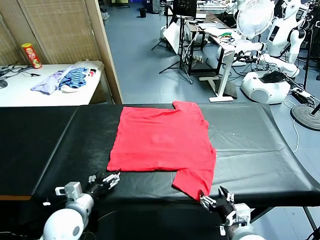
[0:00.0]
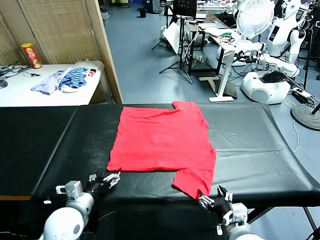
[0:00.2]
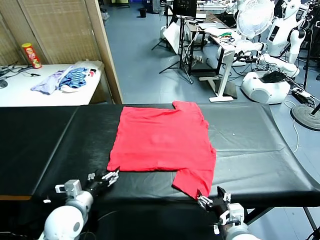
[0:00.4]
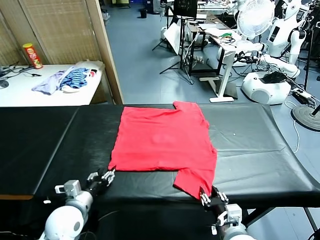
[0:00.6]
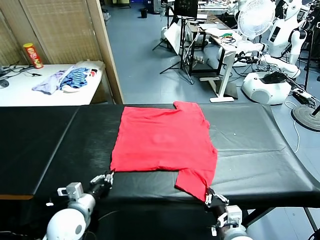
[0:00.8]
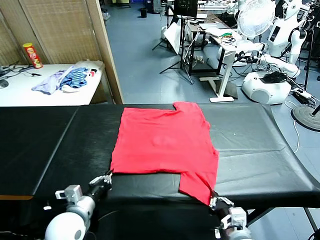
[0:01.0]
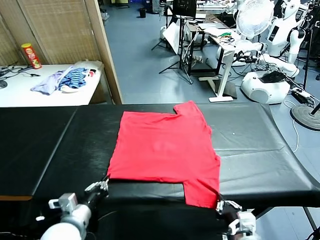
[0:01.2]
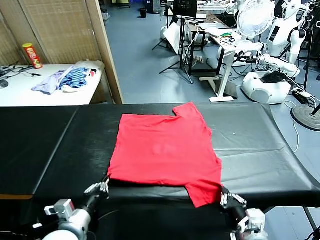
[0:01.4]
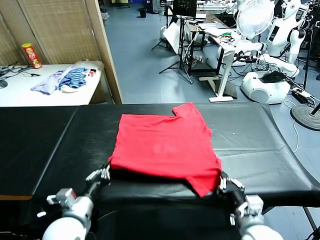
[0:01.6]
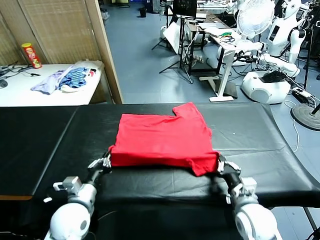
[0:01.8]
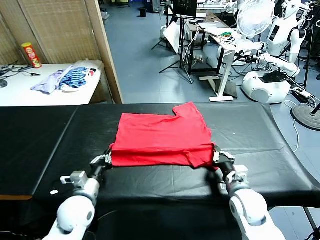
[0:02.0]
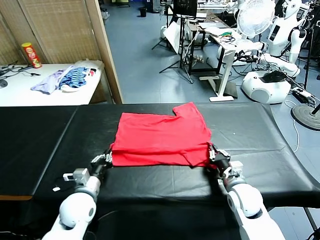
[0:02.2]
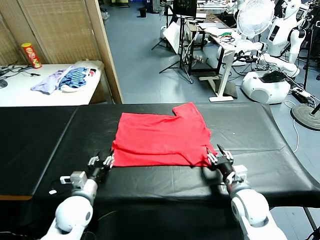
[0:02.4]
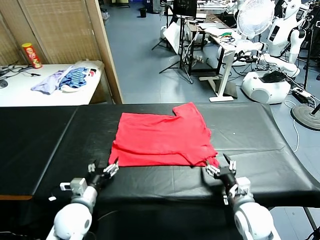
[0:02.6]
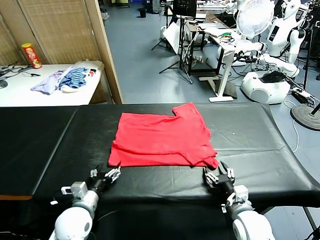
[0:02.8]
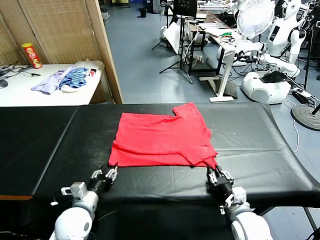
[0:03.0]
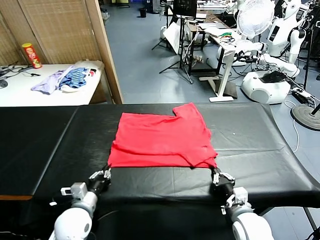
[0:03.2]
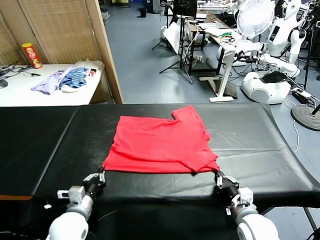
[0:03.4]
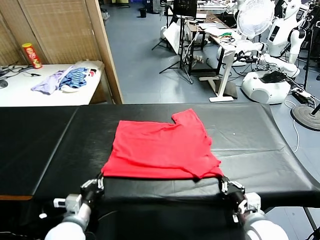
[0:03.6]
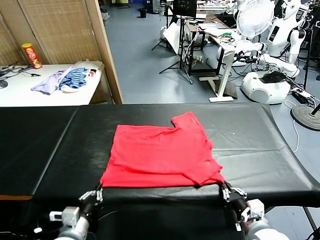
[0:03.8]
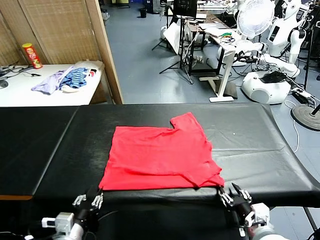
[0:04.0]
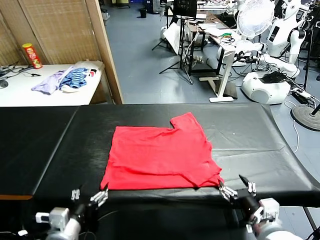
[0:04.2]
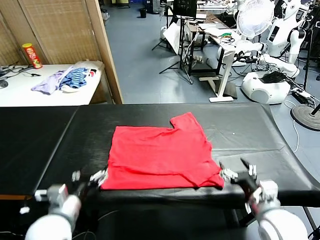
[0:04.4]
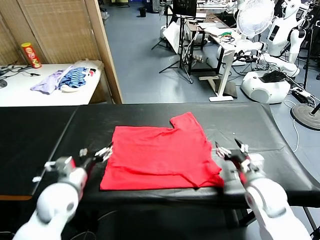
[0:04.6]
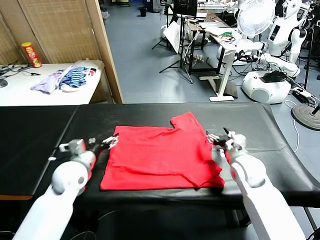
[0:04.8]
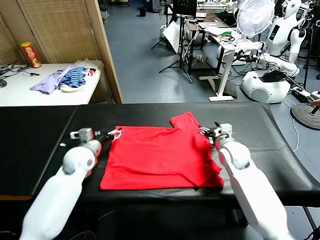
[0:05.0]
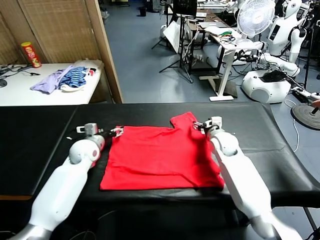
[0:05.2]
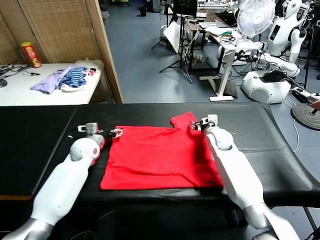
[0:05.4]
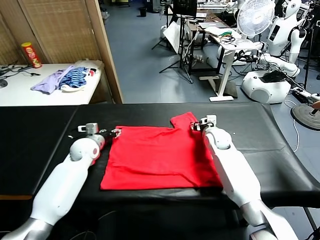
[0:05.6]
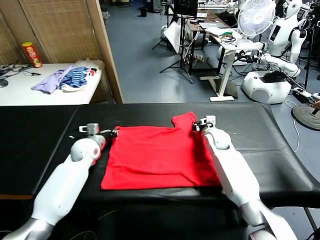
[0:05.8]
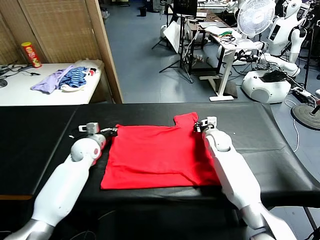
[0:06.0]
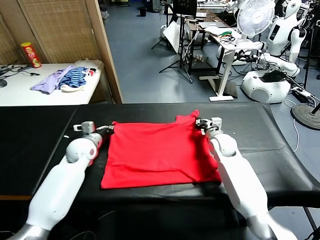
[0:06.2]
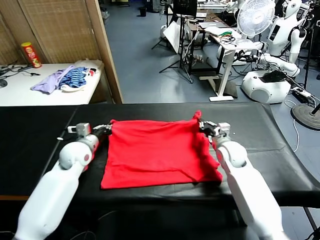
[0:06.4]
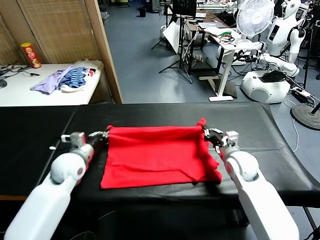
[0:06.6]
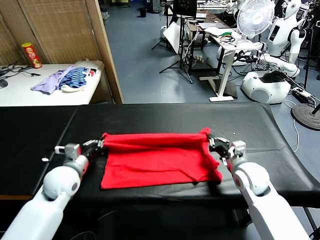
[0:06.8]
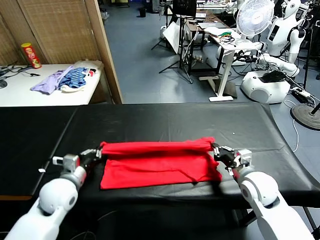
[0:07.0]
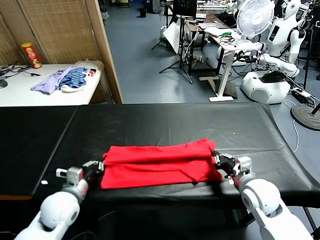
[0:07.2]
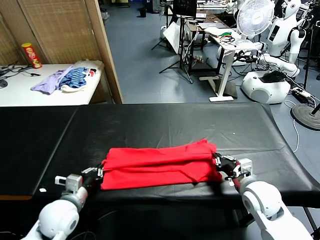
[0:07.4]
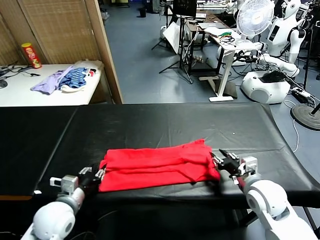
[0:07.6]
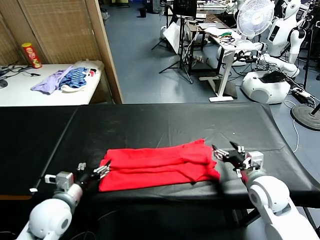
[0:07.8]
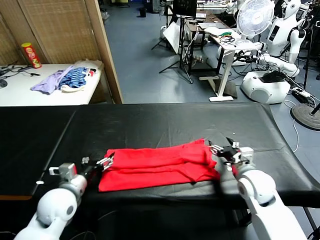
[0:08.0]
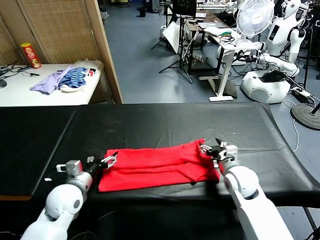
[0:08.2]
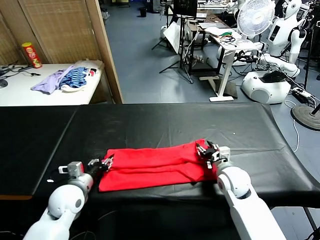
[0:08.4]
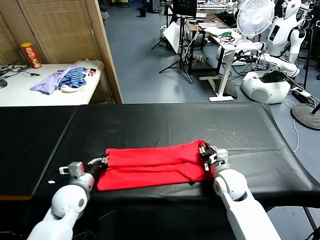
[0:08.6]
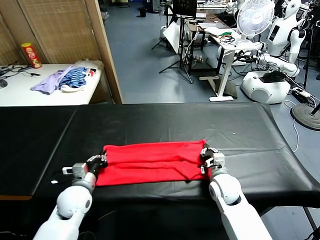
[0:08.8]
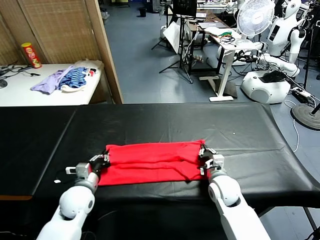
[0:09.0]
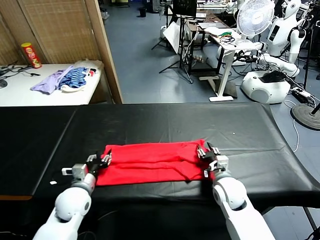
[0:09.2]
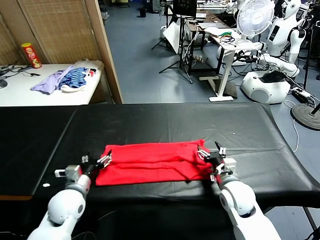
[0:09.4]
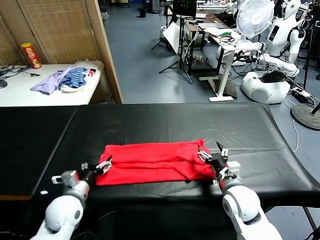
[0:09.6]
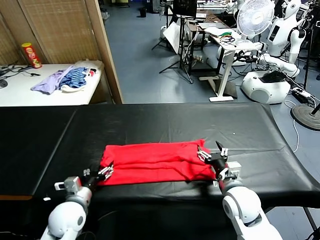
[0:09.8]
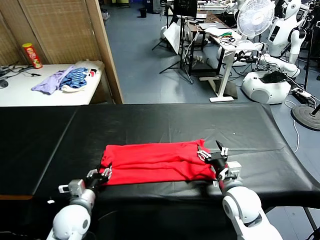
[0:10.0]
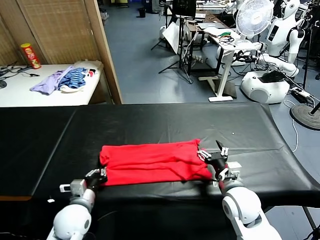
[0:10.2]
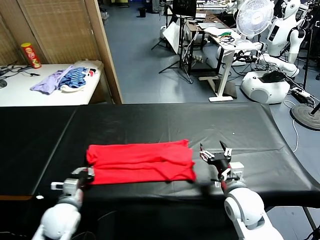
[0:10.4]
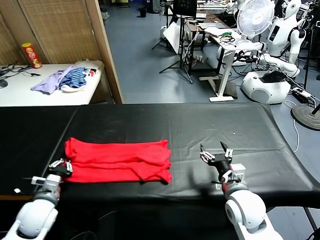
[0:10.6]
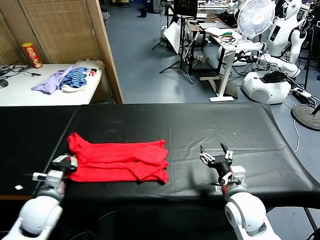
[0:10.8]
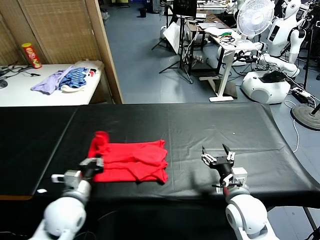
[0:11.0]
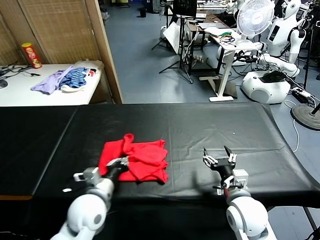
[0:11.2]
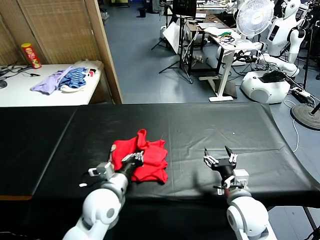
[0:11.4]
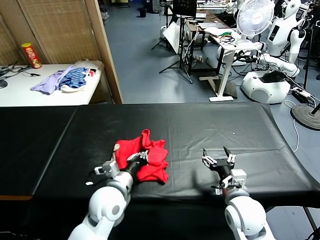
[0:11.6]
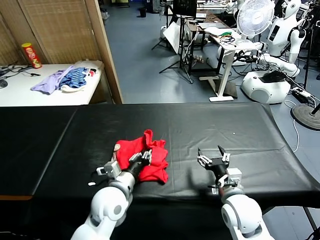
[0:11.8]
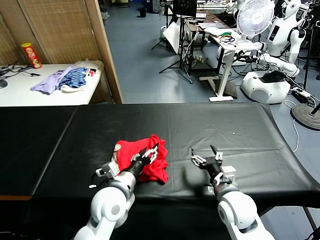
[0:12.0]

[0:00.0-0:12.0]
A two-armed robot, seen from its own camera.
Task of the whole recording: fold and organize the clothes.
Step, 0:00.0 to 0:01.4: use both grippers simultaneously to clamp the lower edge of the clothing fabric.
Step, 0:01.6 to 0:02.4: use both grippers to drag the lower edge of the fabric forward and fold it over the upper edge.
Step, 0:02.6 to 0:04.2: Drag the clothes downward with both gripper.
Step, 0:04.4 to 0:06.2: use both grippers simultaneously to clamp the upper edge of the clothing fabric.
Step, 0:06.4 to 0:07.8: use both grippers to drag the upper edge of the fabric backward and fold it over the lower edge.
Step, 0:08.0 to 0:10.4: use the left gripper to clamp the left edge of the fabric.
0:01.6 to 0:03.0: The left gripper travels downward by roughly 5 cm, and opens; the right gripper moves roughly 5 cm, and opens, then closes once more.
0:03.0 to 0:04.4: The left gripper moves upward, some 10 cm, reaches roughly 10 cm backward, then returns, and opens its fingers; the right gripper travels upward and forward by approximately 10 cm, and opens.
0:04.4 to 0:06.0: The grippers both shift forward by roughly 25 cm. The right gripper closes. The left gripper closes up.
0:06.0 to 0:07.6: Both grippers move backward, roughly 20 cm. The left gripper opens its fingers, while the right gripper opens up.
0:07.6 to 0:09.0: The left gripper shifts approximately 10 cm forward and downward, and closes its fingers, while the right gripper shifts about 10 cm downward and to the left, and closes up.
0:09.0 to 0:10.4: The right gripper heads backward and upward, covering some 10 cm, and opens up. Meanwhile the left gripper goes some 5 cm backward, and opens, then closes once more.
0:10.4 to 0:12.0: The left gripper is displaced to the right and upward by approximately 15 cm, and opens its fingers.

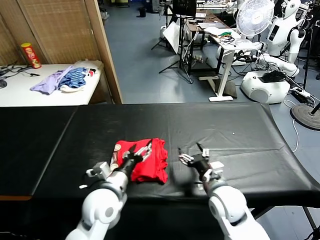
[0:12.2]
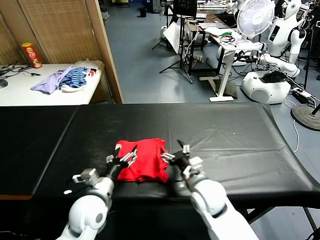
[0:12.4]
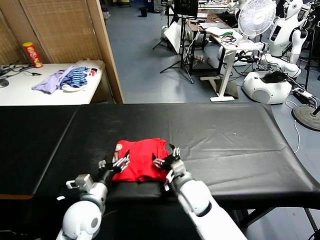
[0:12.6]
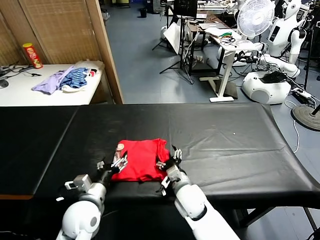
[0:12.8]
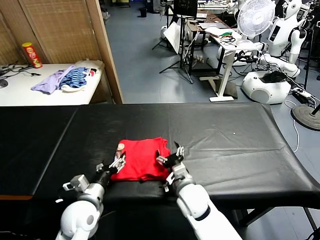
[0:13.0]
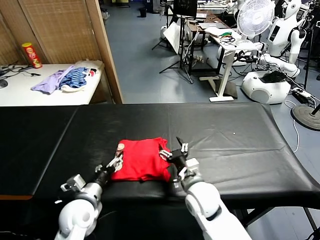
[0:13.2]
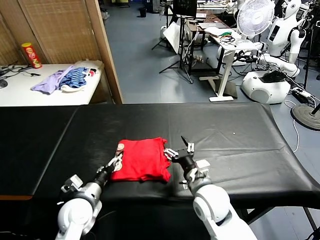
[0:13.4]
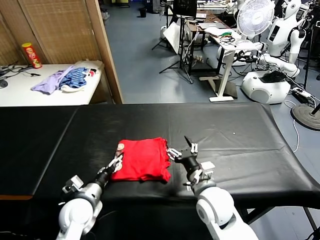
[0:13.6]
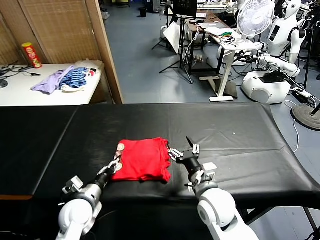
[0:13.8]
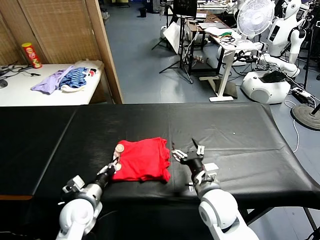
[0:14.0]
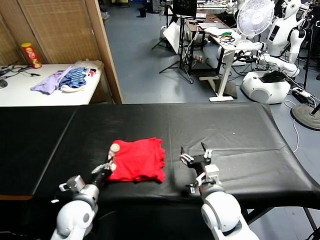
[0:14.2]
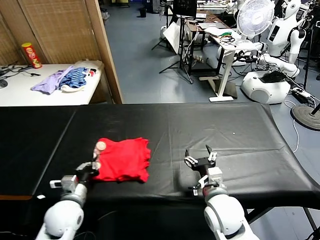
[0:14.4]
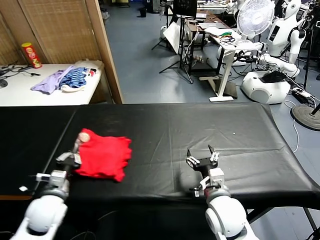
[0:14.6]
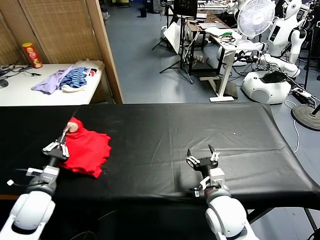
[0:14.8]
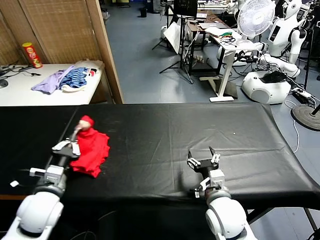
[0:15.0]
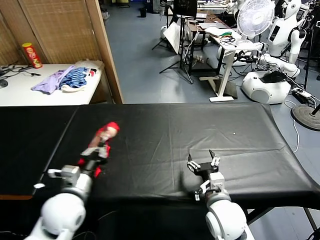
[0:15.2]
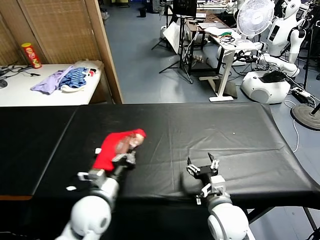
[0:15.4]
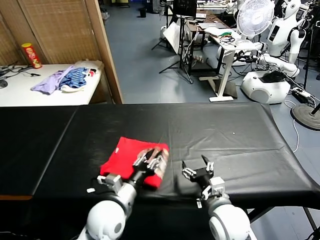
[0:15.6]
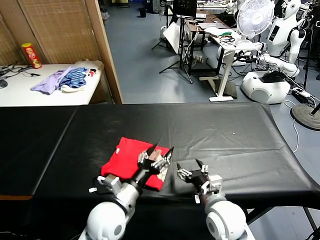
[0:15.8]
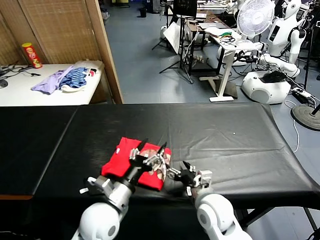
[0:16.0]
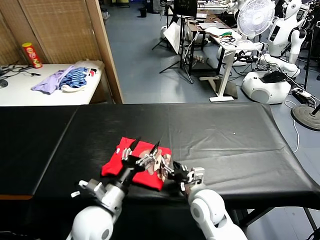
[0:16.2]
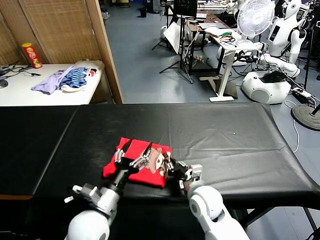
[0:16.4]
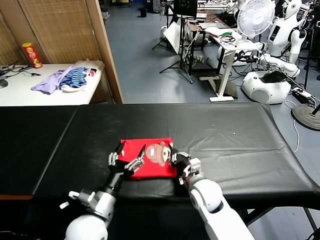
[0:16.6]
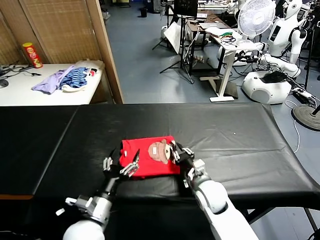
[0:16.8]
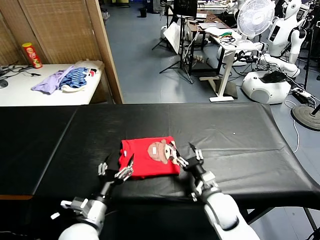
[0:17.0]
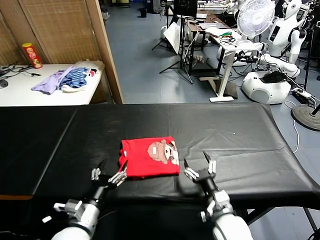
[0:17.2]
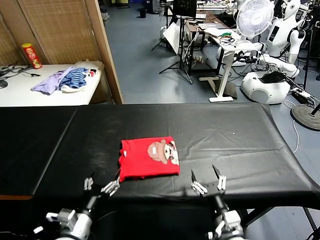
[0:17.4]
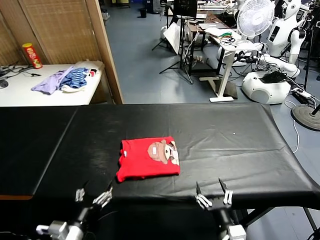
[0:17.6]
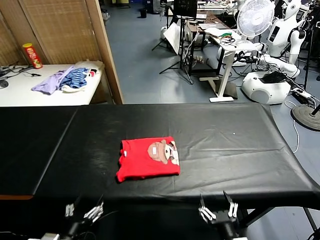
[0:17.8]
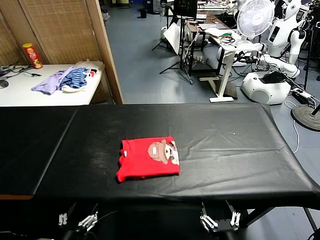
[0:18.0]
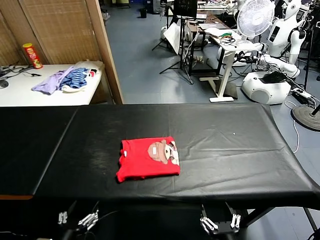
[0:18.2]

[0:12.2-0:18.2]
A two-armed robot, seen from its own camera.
Task of the whole recording: fold and organize the clothes.
Step, 0:12.2 to 0:15.6: Flip the folded clothes over with left gripper.
Step, 0:15.8 to 0:17.0: Drag the clothes to the center of the table.
0:12.2 to 0:13.8: The left gripper is displaced to the left and downward by roughly 15 cm, and closes up. Meanwhile the right gripper goes to the left and returns, about 10 cm each way.
0:13.8 to 0:15.2: The left gripper travels upward by roughly 10 cm, and closes up.
0:15.2 to 0:16.6: The right gripper is displaced forward and downward by approximately 10 cm, and closes. The left gripper moves to the right, some 10 cm, and opens its fingers.
0:16.6 to 0:18.2: The right gripper shifts about 25 cm backward, and opens; the left gripper goes about 15 cm backward and to the left.
